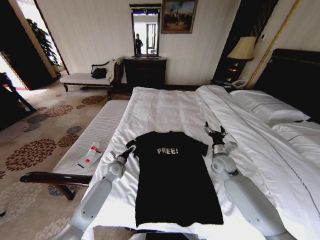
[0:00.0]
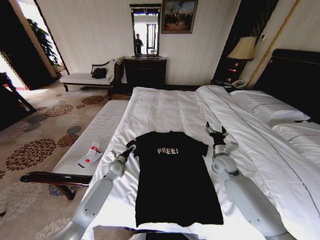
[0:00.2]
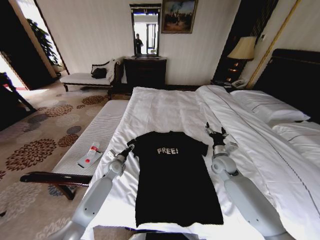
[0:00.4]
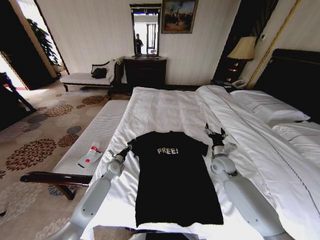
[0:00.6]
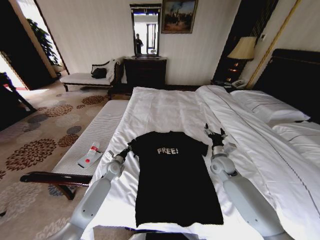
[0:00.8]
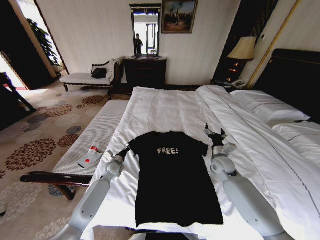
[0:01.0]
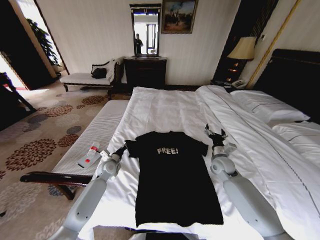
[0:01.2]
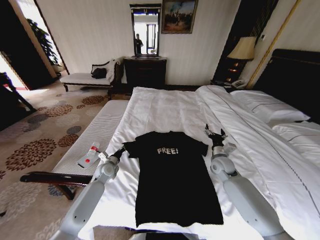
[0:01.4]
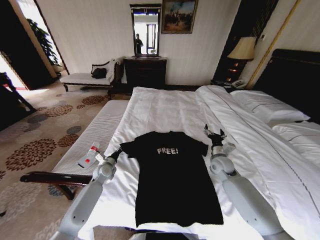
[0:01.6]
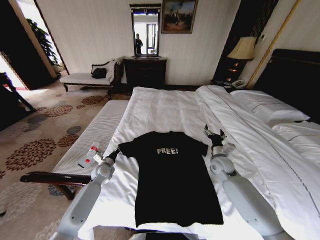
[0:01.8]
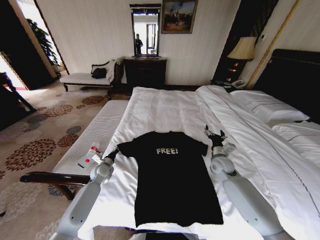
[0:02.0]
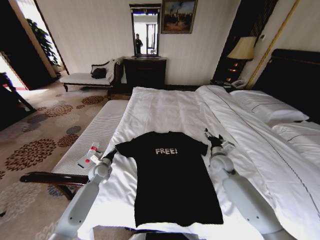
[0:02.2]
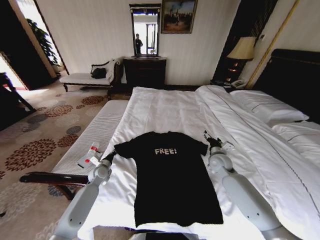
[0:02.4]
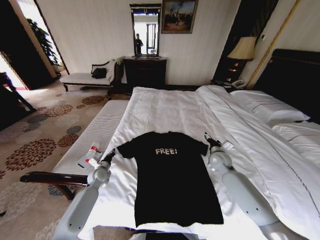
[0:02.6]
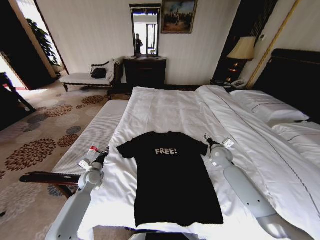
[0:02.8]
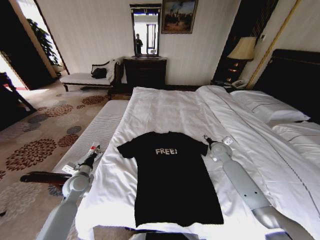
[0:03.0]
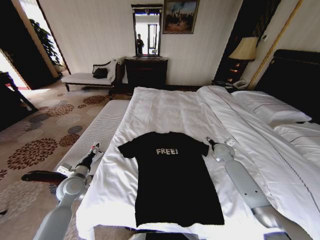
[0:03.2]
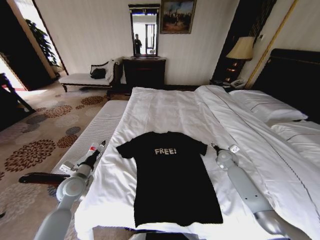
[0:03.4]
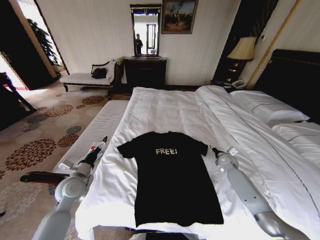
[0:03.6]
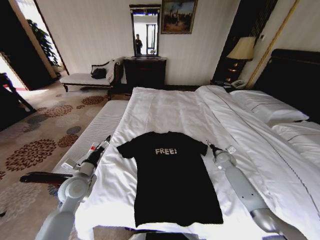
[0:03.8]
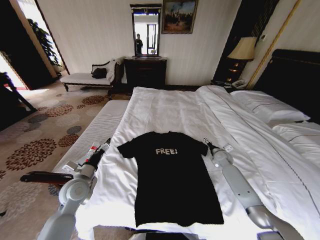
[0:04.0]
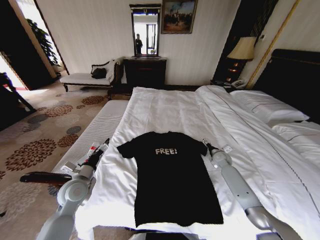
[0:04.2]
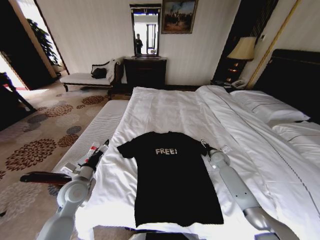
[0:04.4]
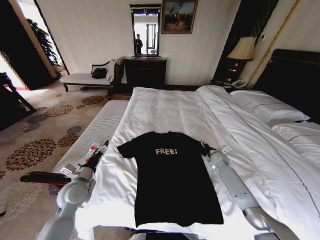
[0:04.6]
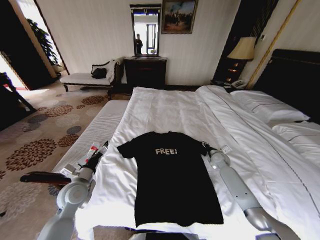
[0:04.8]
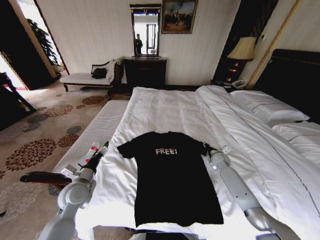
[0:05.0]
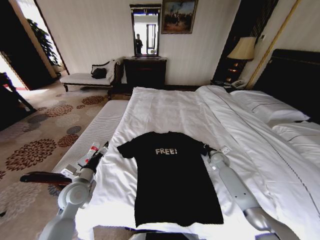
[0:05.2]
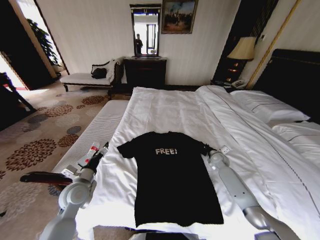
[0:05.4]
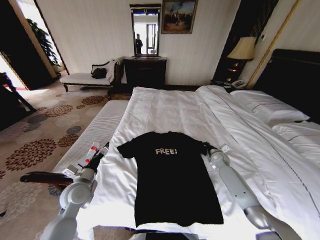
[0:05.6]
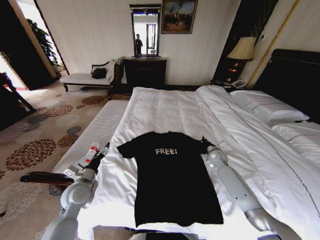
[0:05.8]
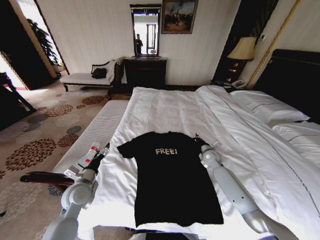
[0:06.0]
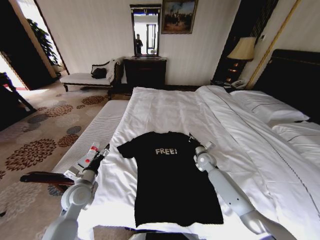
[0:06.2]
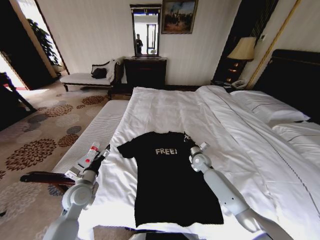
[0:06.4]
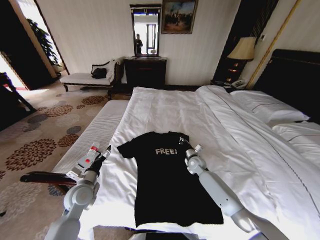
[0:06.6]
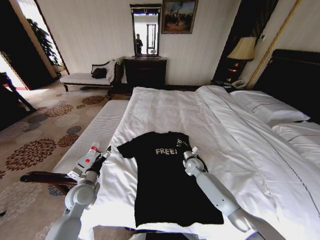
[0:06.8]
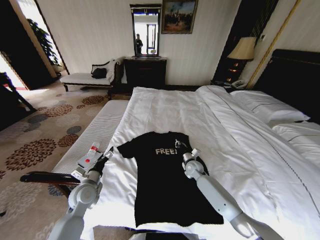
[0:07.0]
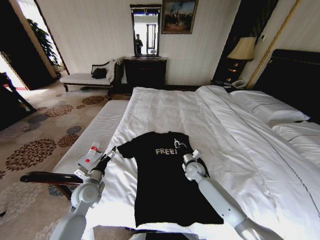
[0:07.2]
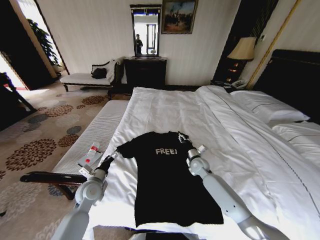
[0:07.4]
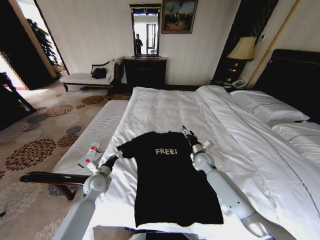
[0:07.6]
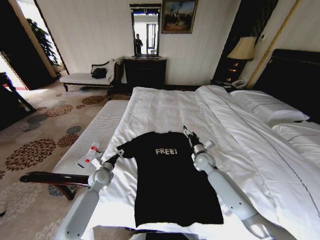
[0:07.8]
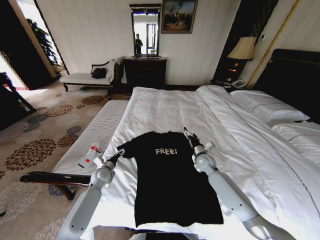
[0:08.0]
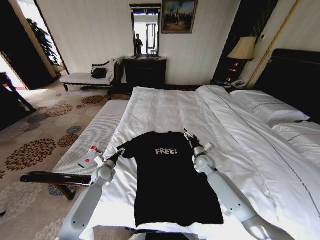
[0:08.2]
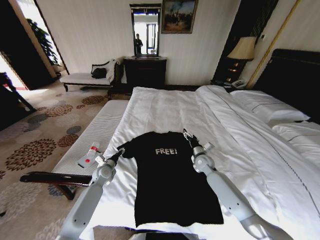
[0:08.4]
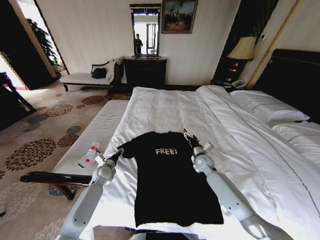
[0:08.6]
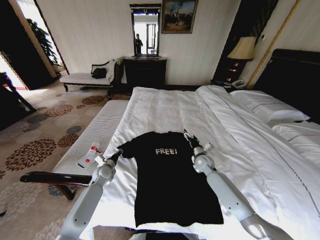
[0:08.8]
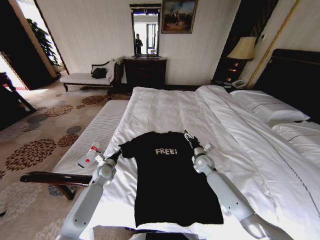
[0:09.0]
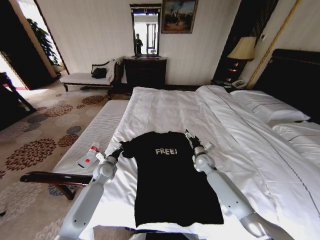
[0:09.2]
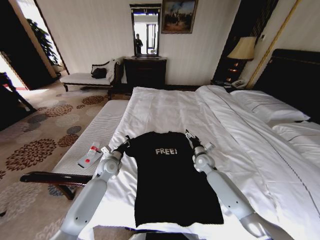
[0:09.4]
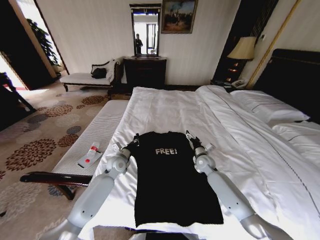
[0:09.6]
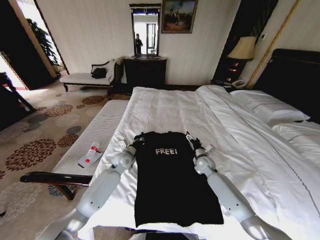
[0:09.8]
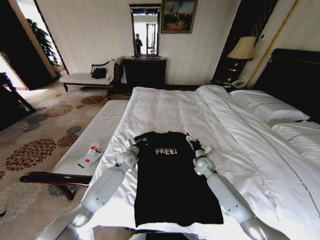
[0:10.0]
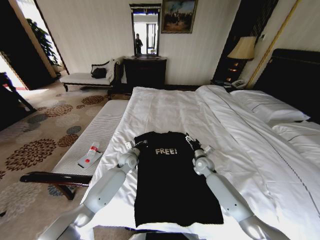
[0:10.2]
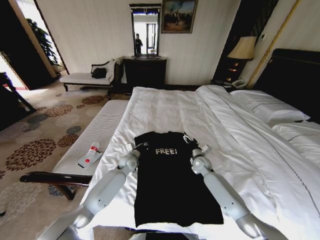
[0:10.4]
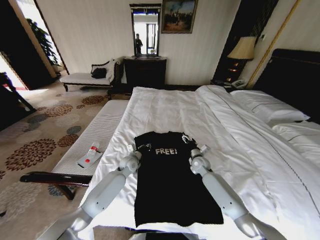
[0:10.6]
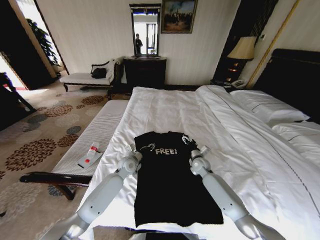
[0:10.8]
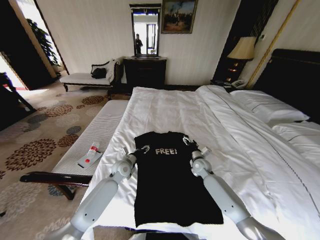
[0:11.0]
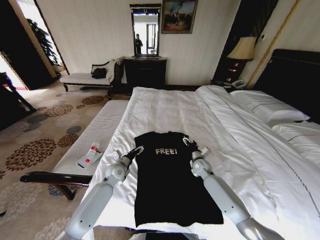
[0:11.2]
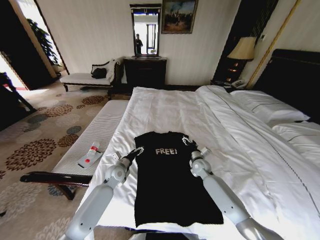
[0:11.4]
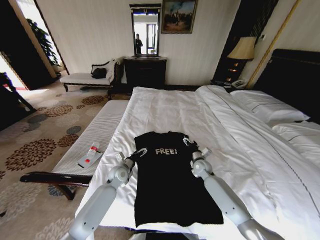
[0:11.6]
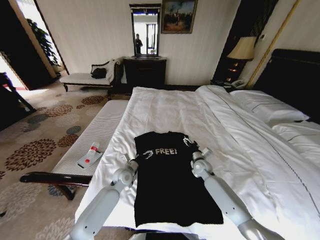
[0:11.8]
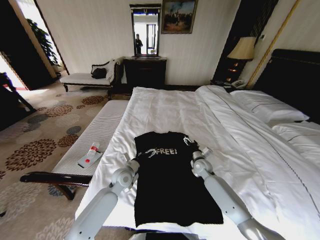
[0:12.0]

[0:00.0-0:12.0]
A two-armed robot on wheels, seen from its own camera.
Task of the whole recording: Fold the clothes on the bed.
0.0 to 1.6 s: The left gripper moves roughly 5 cm, and closes.
1.6 to 3.0 s: The left gripper moves backward, to the left and upward, approximately 10 cm, and opens, while the right gripper moves forward, roughly 5 cm.
3.0 to 4.4 s: The right gripper shifts about 10 cm downward, while the left gripper shifts some 10 cm upward and backward, and opens its fingers.
4.4 to 6.0 s: The right gripper is displaced to the left by approximately 5 cm, and closes up.
6.0 to 7.6 s: The right gripper moves to the left, about 5 cm, and opens its fingers, while the left gripper heads forward and downward, covering about 10 cm.
7.6 to 9.0 s: The left gripper heads forward, covering about 5 cm, and closes.
9.0 to 10.4 s: The left gripper moves to the right, some 15 cm.
10.4 to 12.0 s: The left gripper heads backward, covering approximately 10 cm, and opens up.

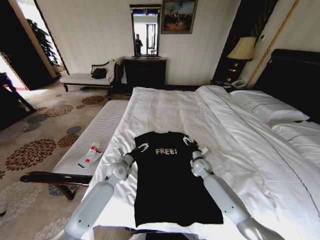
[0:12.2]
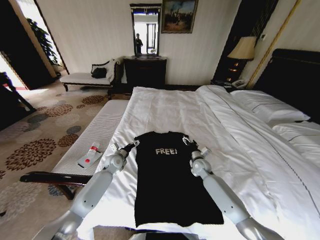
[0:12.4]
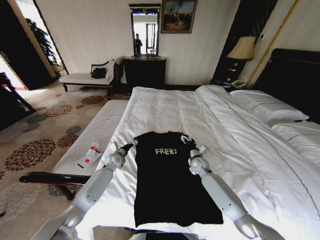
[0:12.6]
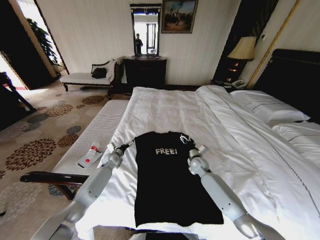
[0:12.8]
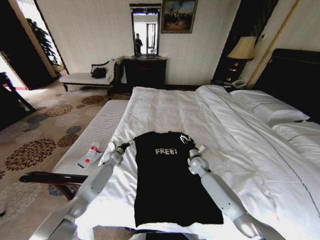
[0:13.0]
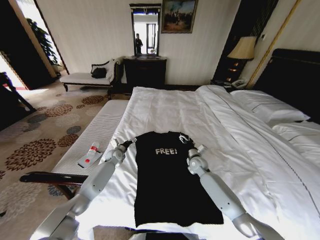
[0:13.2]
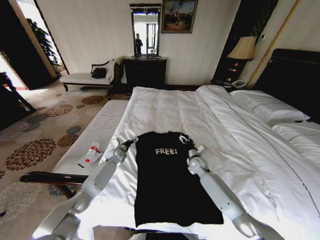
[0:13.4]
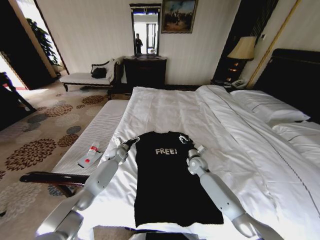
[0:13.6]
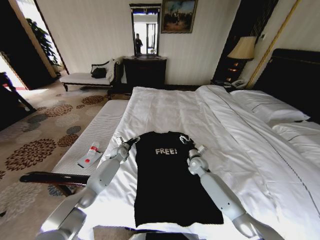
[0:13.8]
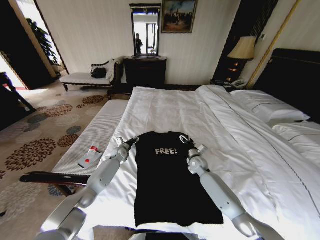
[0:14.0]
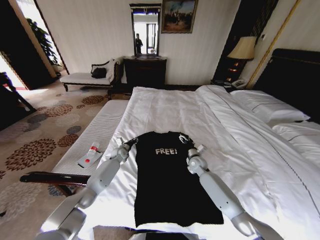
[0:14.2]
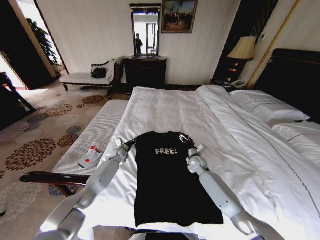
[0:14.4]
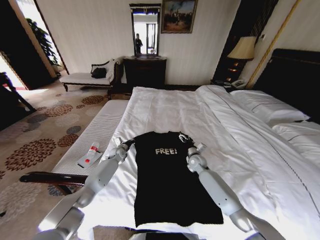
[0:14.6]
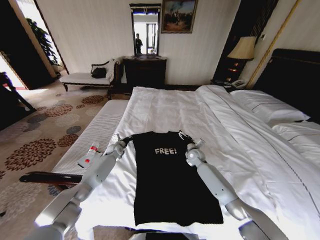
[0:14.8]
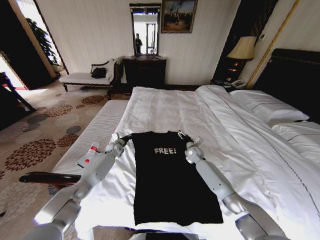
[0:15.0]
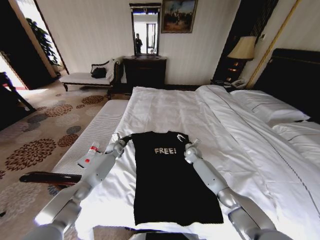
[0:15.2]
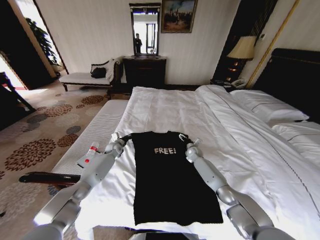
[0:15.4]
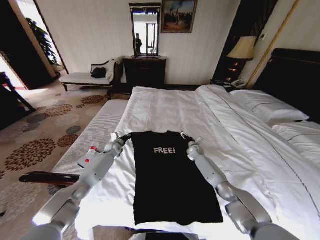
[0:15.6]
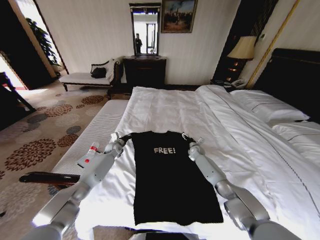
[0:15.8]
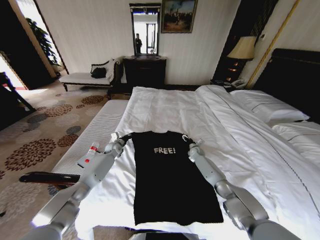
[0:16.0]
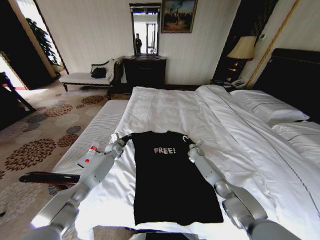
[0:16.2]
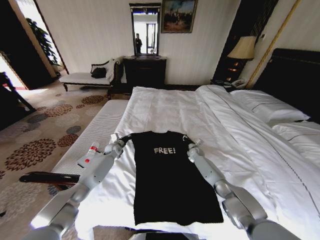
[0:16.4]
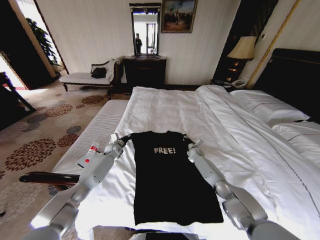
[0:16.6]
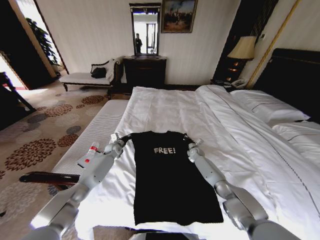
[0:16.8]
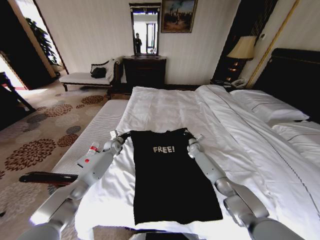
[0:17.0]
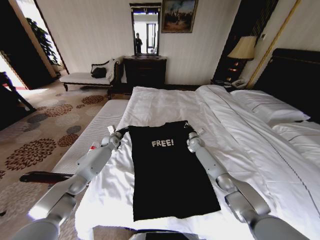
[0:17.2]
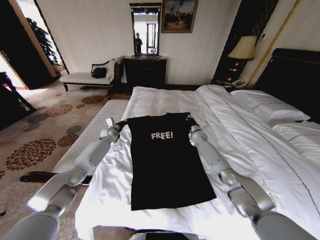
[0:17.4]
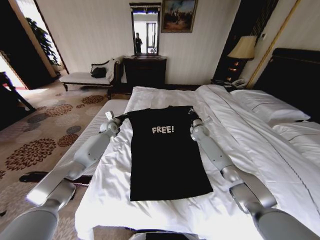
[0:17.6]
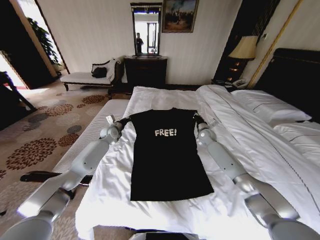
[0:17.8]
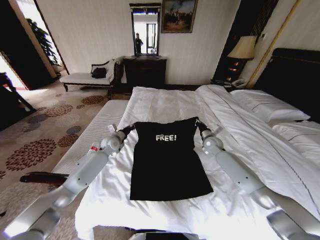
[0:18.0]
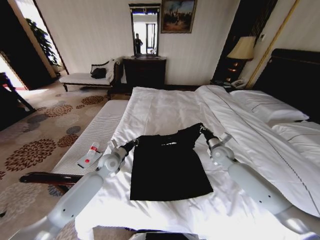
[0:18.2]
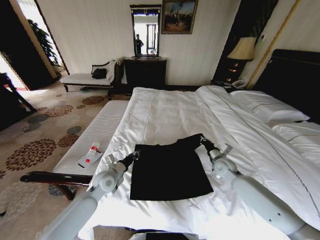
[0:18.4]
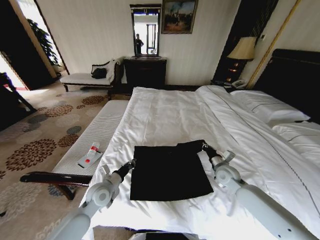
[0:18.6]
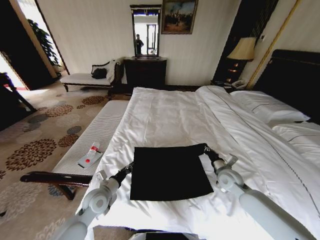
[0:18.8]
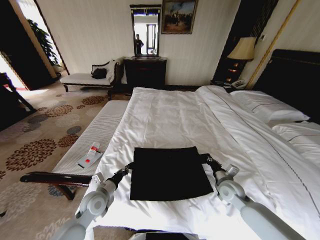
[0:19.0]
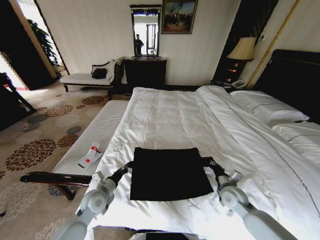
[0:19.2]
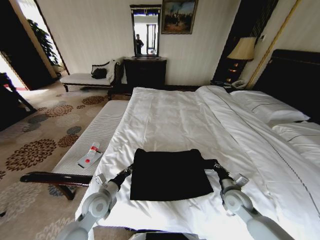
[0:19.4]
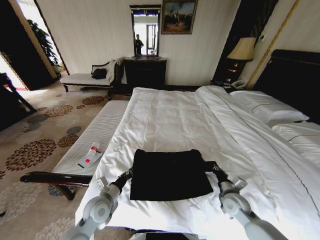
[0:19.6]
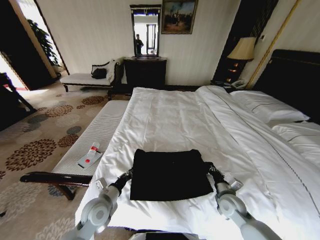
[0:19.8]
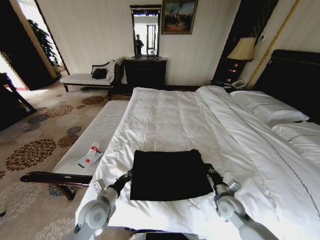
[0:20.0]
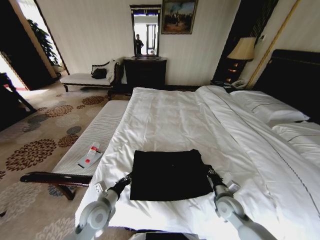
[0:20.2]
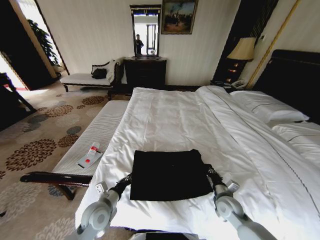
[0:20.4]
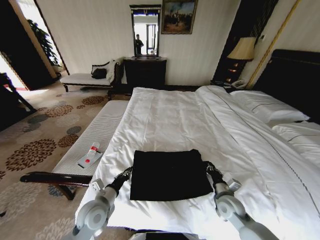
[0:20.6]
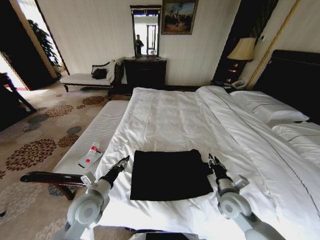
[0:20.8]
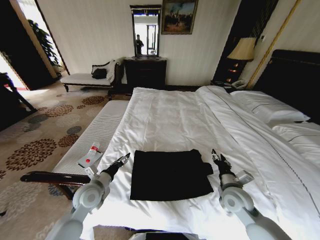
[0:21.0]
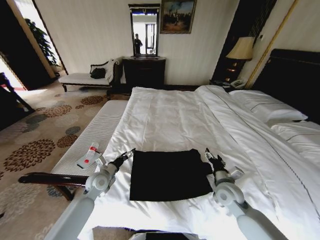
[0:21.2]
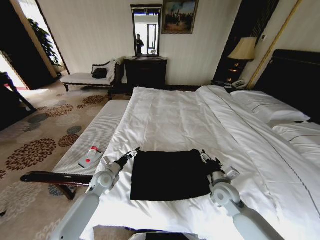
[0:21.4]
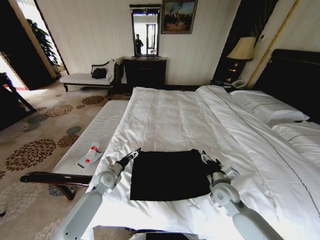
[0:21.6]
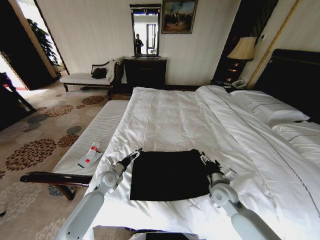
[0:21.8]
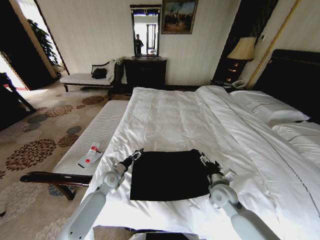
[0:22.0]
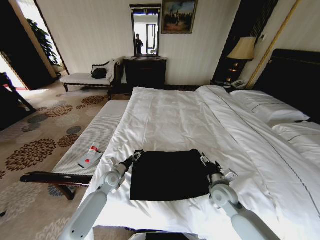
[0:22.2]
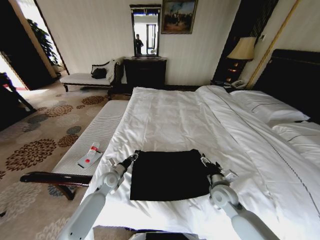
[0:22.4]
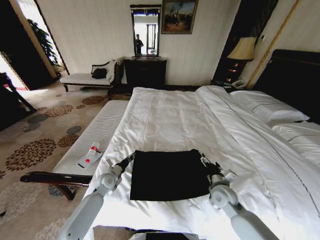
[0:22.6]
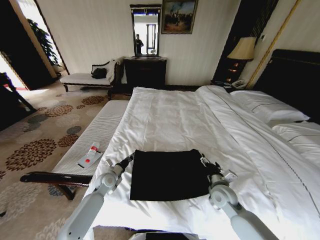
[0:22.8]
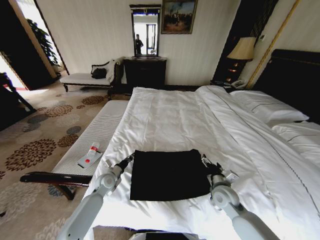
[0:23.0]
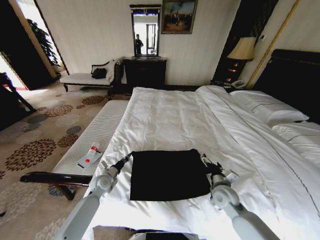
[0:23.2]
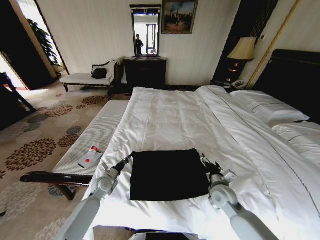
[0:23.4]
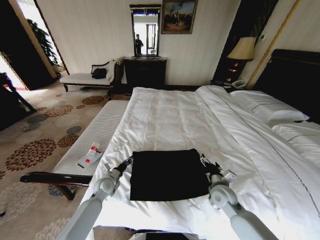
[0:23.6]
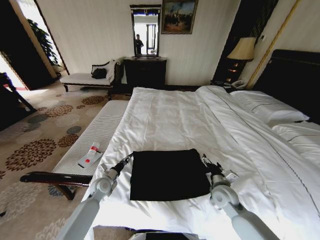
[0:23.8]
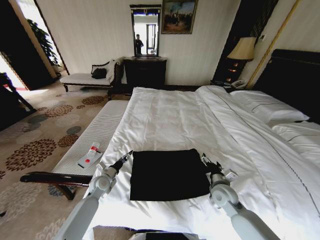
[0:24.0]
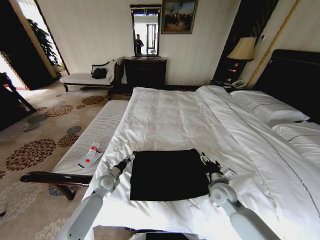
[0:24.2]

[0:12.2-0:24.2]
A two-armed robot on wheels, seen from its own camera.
Task of the whole recording: Fold the clothes on the bed.
12.2 to 13.8 s: The left gripper goes about 15 cm forward.
13.8 to 15.2 s: The right gripper shifts approximately 10 cm forward, while the left gripper closes its fingers.
15.2 to 16.6 s: The right gripper ends up roughly 5 cm from where it was, and closes its fingers.
16.6 to 18.2 s: The left gripper heads backward and upward, covering about 15 cm. The right gripper shifts about 20 cm upward and backward.
18.2 to 19.8 s: The left gripper goes some 20 cm backward, while the right gripper travels backward and downward by roughly 25 cm.
19.8 to 21.2 s: The right gripper moves upward, about 5 cm, and opens its fingers; the left gripper moves forward, about 10 cm, and opens up.
21.2 to 22.6 s: The left gripper is displaced downward by roughly 5 cm, and closes its fingers.
22.6 to 24.2 s: The left gripper opens.
